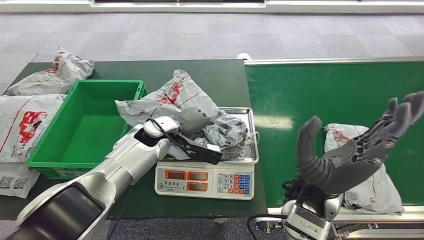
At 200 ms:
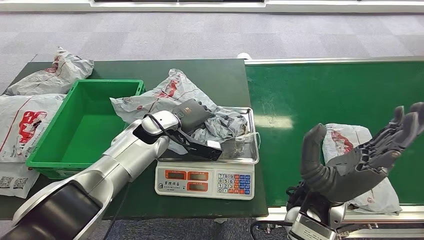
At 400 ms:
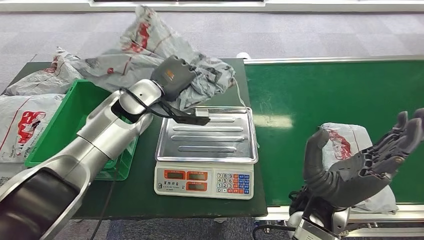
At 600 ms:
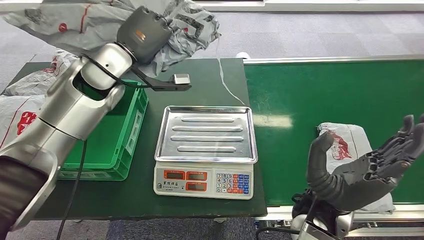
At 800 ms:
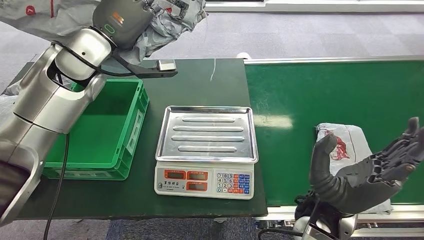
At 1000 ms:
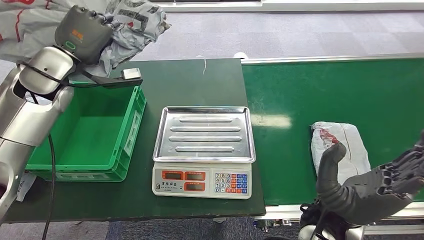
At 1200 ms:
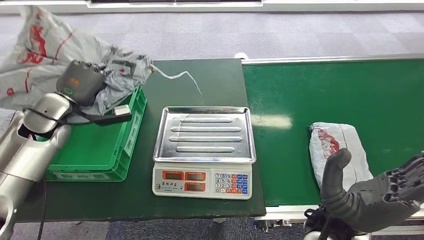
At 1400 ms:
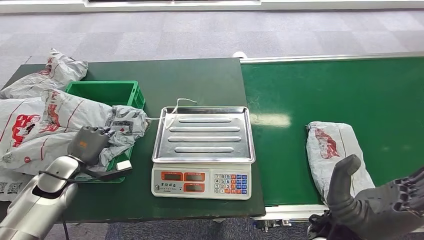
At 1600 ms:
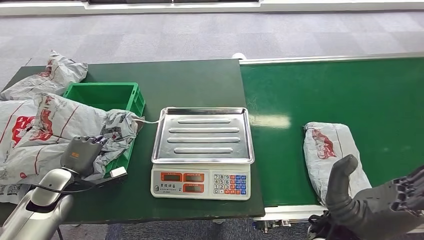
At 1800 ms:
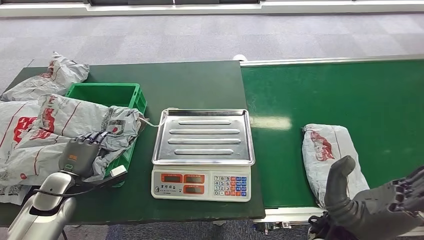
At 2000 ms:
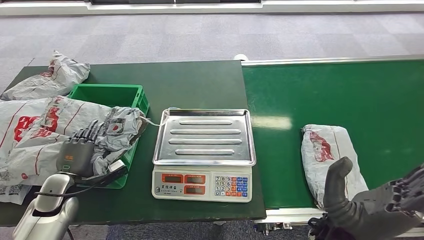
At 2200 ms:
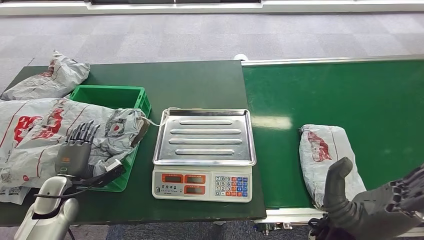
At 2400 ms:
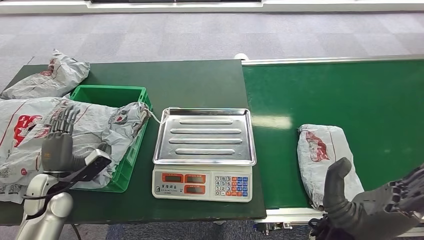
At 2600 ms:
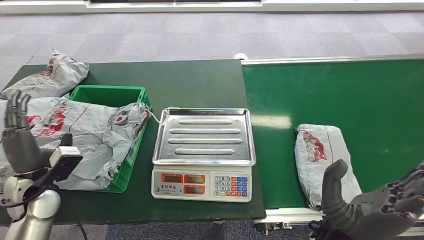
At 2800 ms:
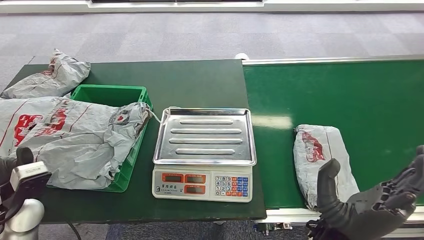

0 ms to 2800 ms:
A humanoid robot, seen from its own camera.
Step, 1000 ms to 2800 ms: Place the package into the parcel locker.

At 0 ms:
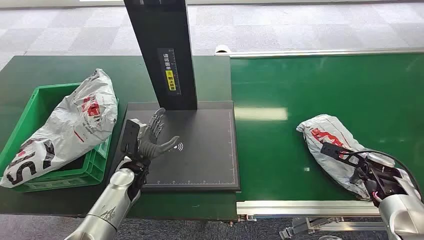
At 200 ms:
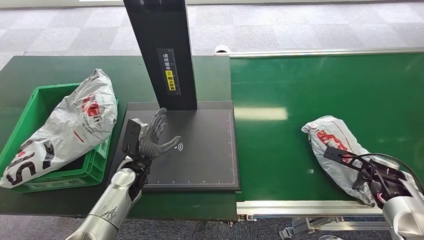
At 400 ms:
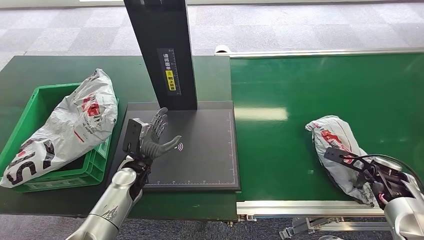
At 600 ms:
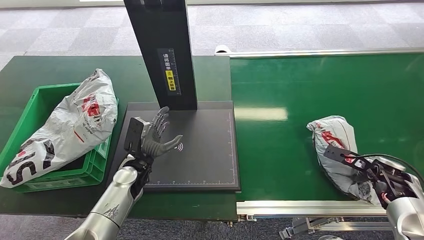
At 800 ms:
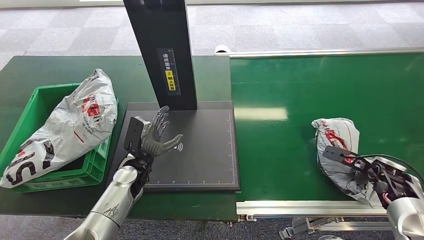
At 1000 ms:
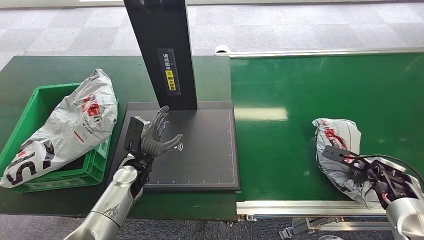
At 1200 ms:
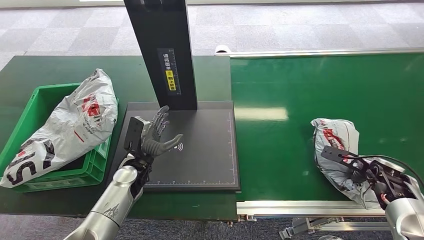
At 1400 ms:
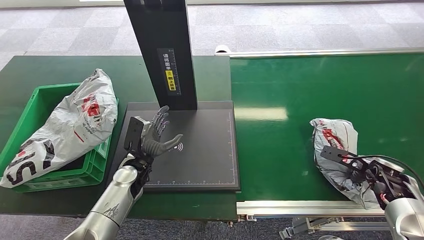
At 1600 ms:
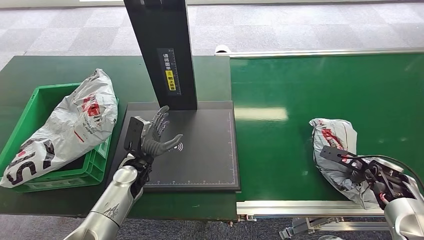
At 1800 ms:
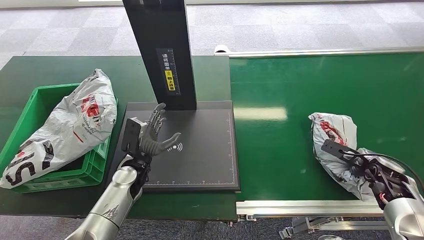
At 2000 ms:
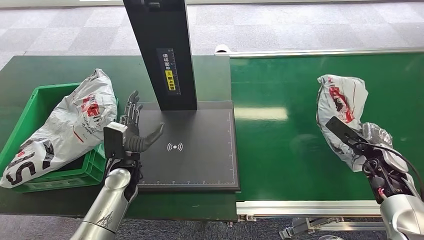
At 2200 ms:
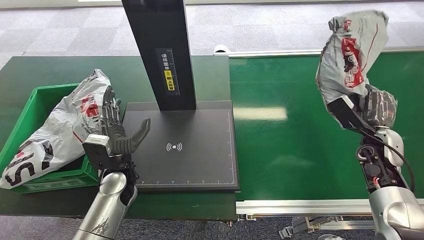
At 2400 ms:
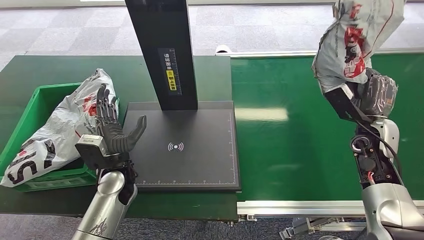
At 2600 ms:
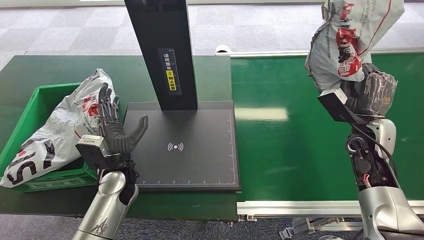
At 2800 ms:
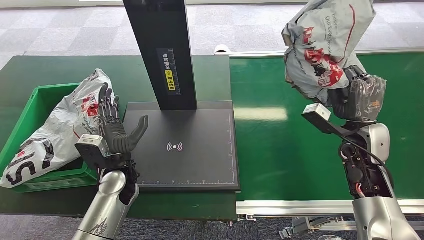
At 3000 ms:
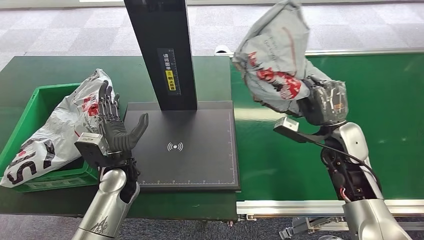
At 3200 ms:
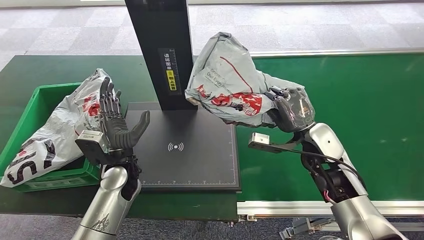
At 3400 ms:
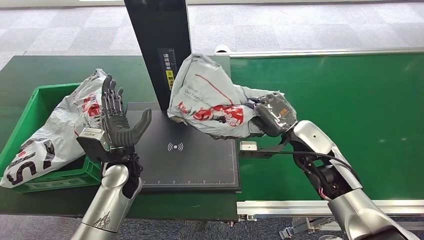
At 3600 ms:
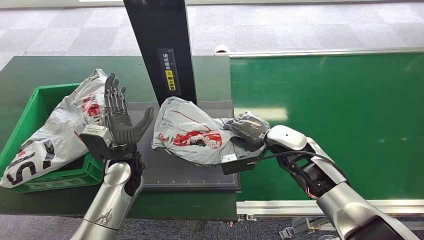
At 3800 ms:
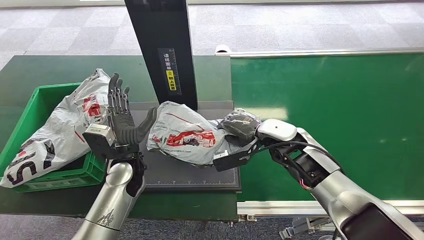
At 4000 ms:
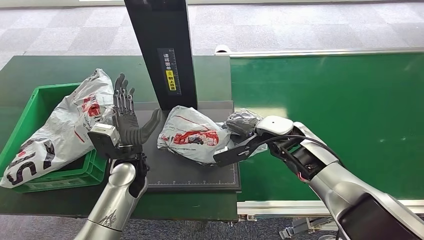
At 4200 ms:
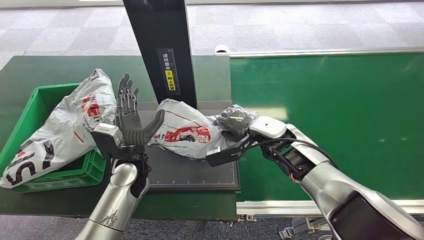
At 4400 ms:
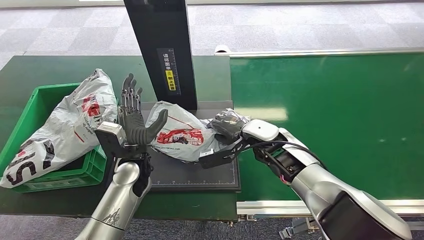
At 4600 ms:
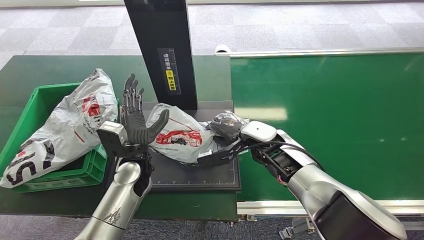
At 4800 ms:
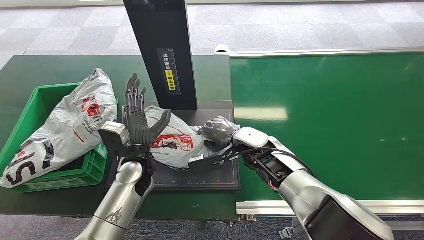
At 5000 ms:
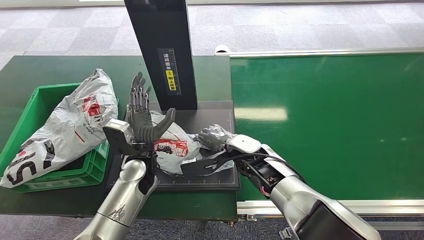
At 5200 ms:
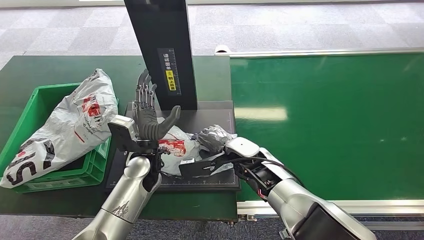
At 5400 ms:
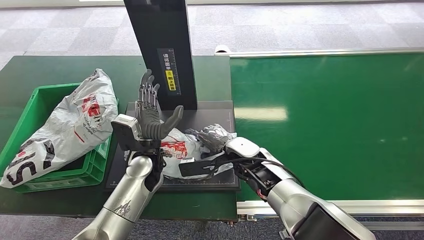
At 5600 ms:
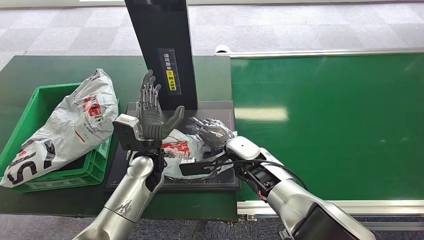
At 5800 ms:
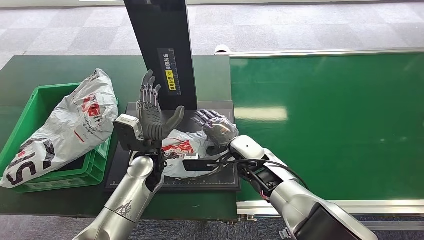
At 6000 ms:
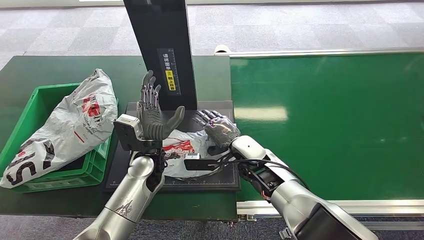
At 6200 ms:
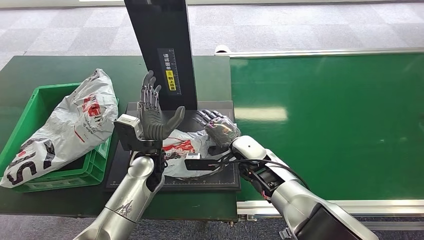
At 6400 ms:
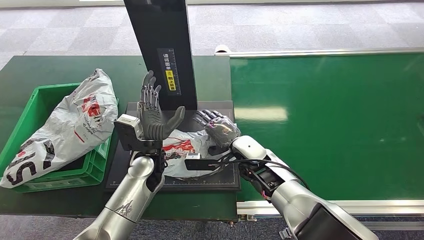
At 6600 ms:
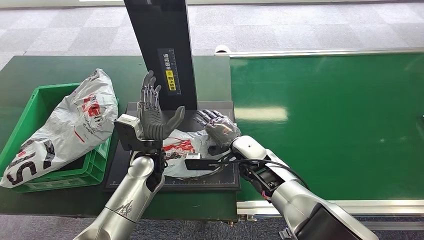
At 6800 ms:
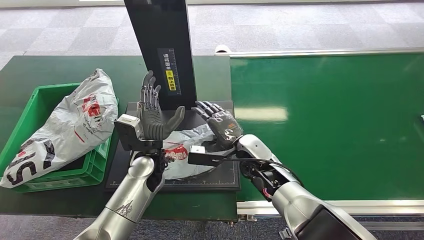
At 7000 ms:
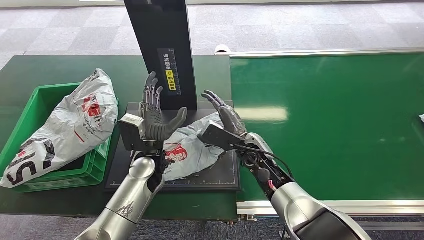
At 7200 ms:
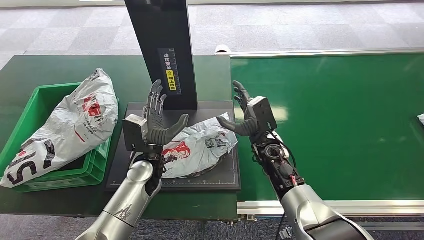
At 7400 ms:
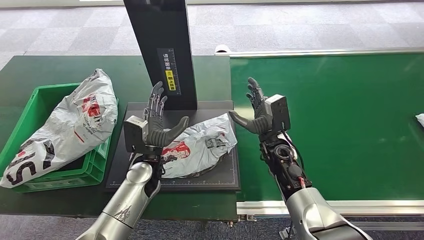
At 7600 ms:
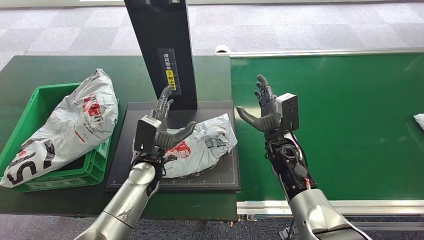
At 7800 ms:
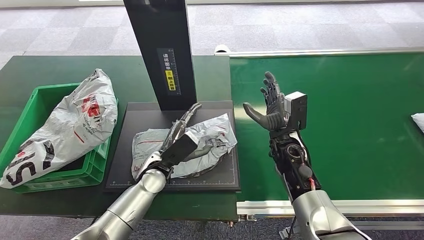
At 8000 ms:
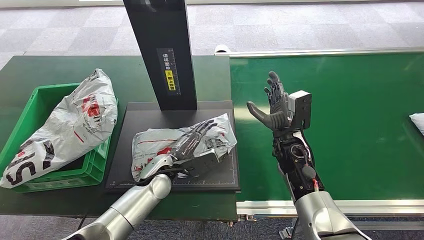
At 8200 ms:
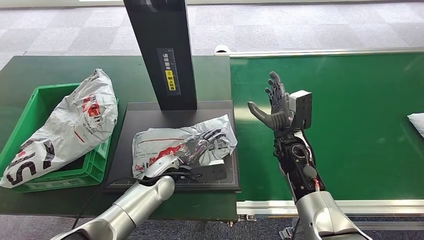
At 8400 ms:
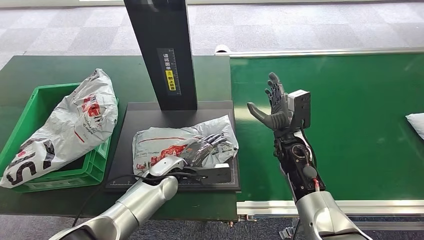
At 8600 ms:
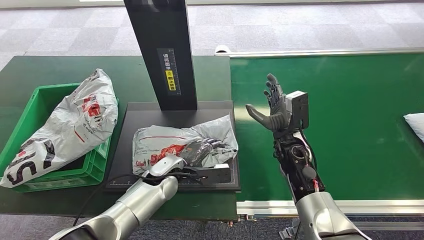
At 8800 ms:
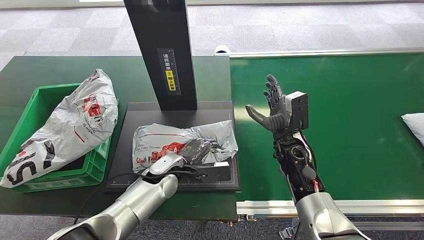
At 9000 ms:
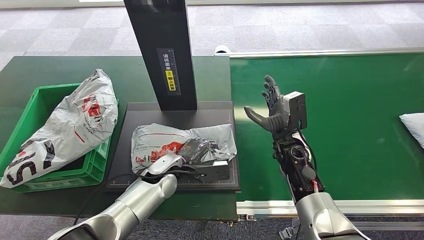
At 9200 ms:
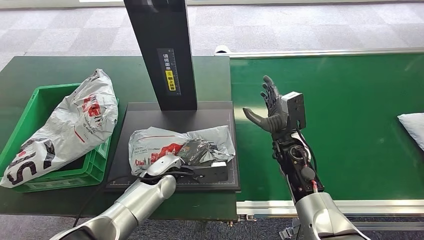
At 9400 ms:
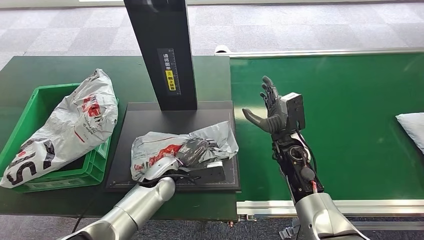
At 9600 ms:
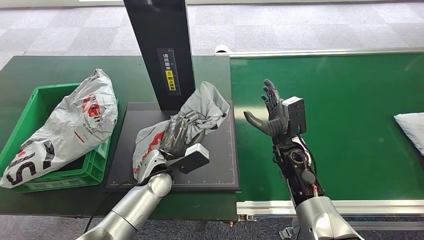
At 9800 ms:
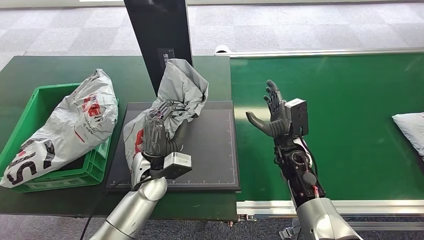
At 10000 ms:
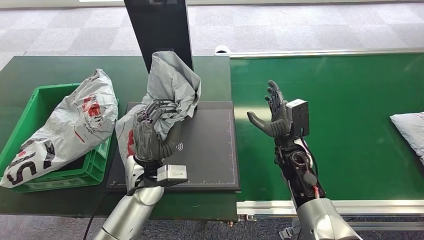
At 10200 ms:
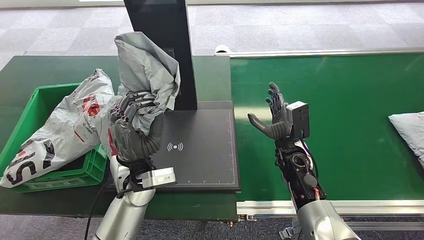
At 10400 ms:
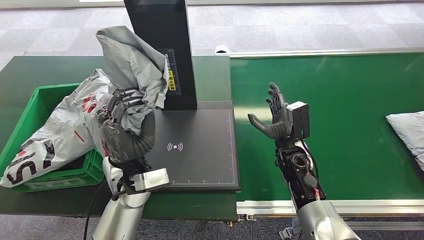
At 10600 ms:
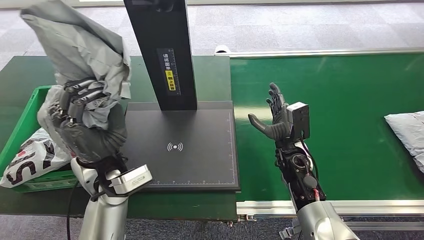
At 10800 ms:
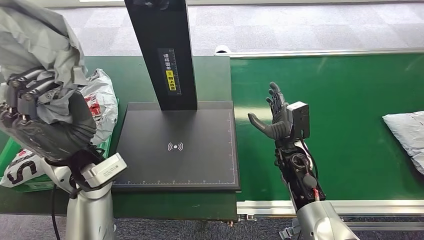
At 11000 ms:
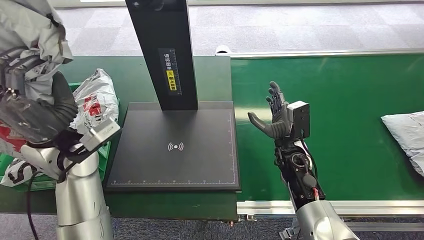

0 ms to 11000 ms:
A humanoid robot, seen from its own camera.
Step, 0 ms to 2000 ms: Pick up the package from the conveyor belt.
Step, 2200 ms to 7400 ms: Place the package onto the inbound machine.
Step, 7600 ms to 10800 ms: Pick up the package from the inbound machine.
4800 ms to 6200 ms: The hands stay close to where they were, moving slightly.
6200 ms to 7800 ms: The right hand heads to the right, covering about 5 cm.

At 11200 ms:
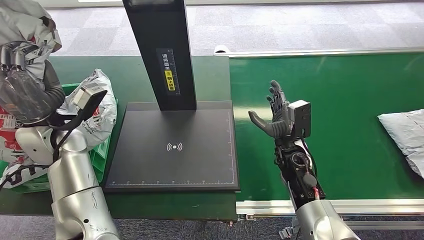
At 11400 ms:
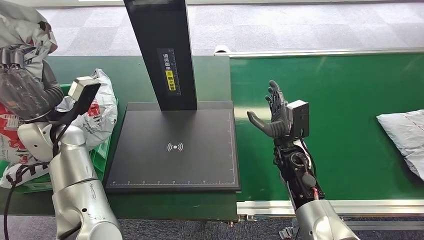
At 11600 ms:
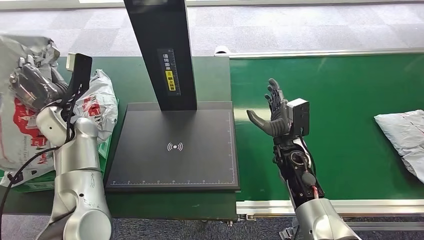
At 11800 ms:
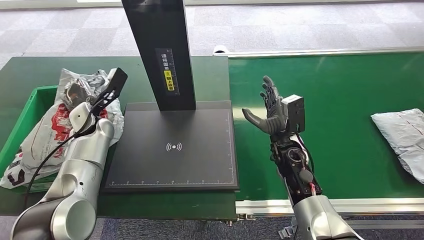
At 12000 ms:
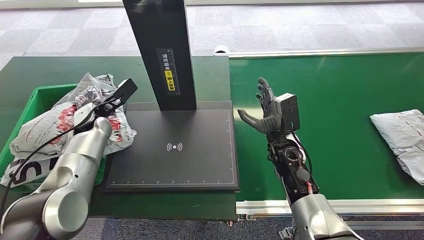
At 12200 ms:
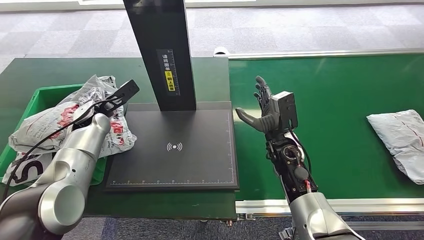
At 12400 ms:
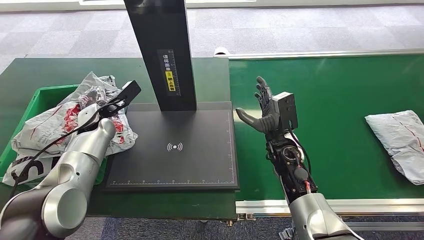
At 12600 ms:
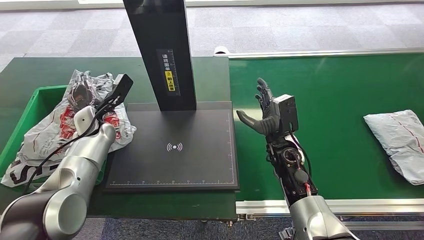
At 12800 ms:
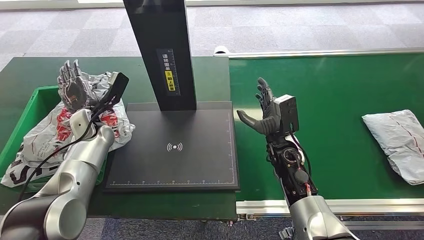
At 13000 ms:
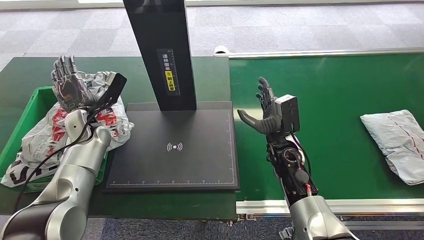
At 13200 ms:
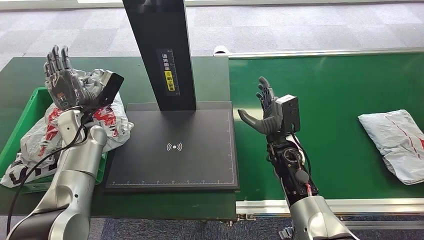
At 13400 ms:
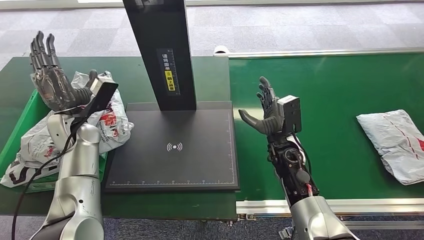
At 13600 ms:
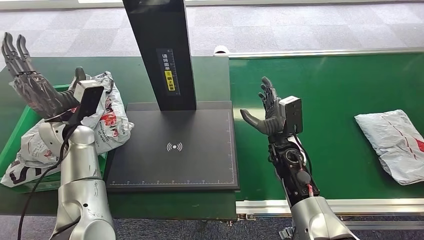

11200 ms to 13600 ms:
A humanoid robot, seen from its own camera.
Step, 11200 ms to 13600 ms: Place the package into the parcel locker.
